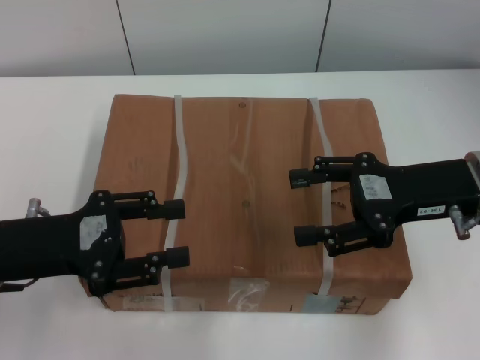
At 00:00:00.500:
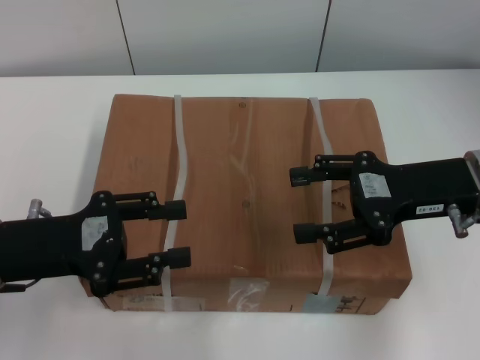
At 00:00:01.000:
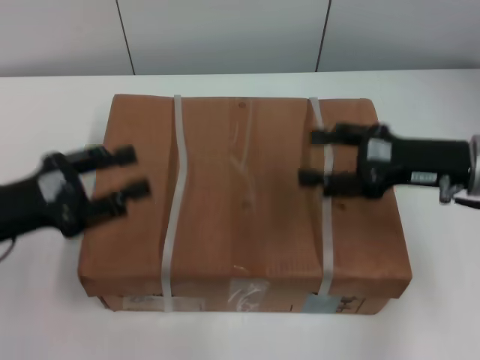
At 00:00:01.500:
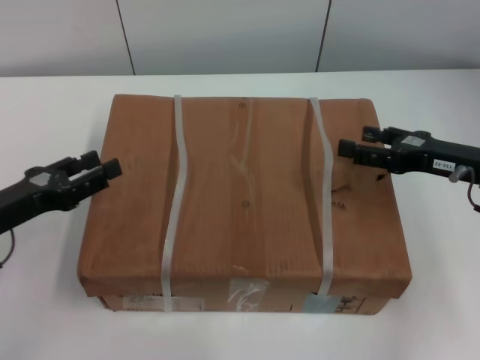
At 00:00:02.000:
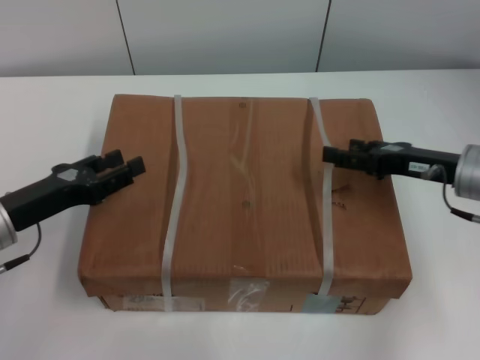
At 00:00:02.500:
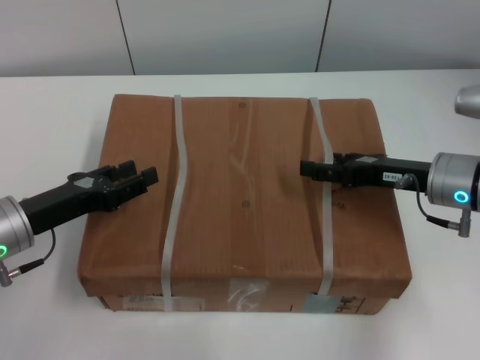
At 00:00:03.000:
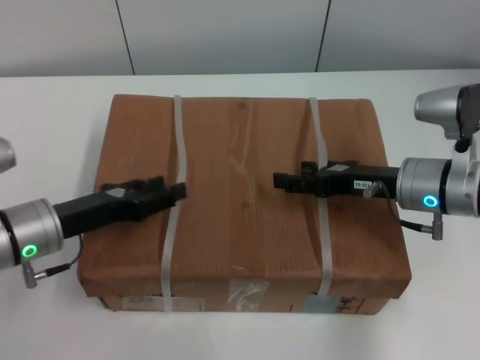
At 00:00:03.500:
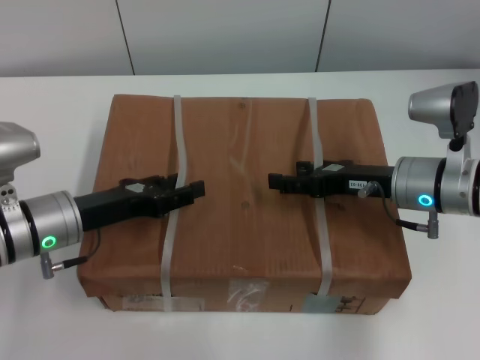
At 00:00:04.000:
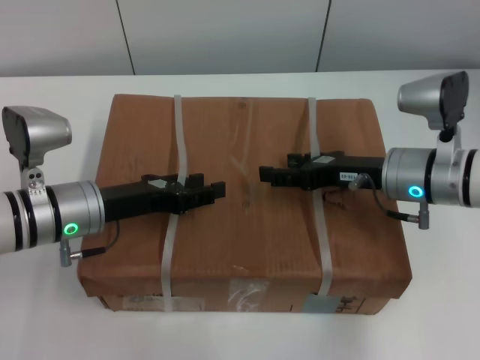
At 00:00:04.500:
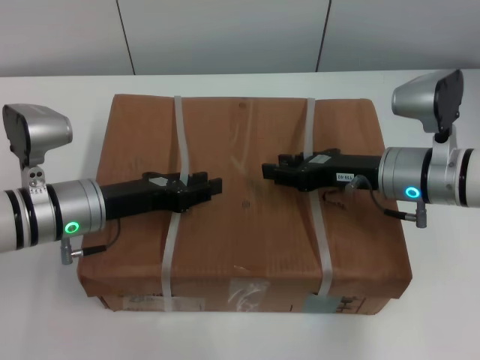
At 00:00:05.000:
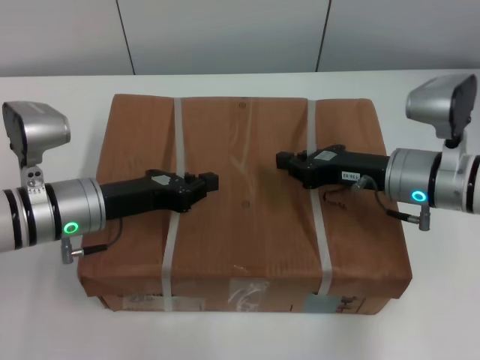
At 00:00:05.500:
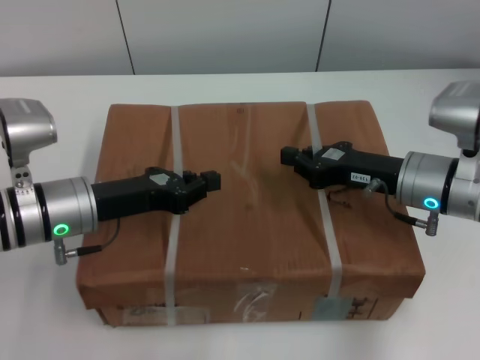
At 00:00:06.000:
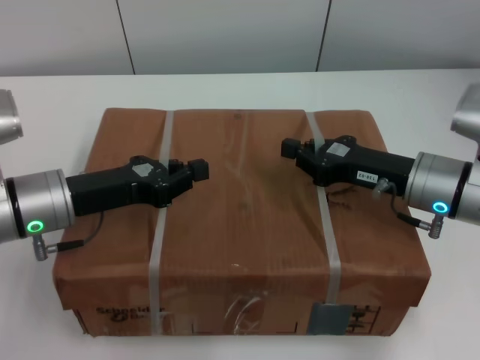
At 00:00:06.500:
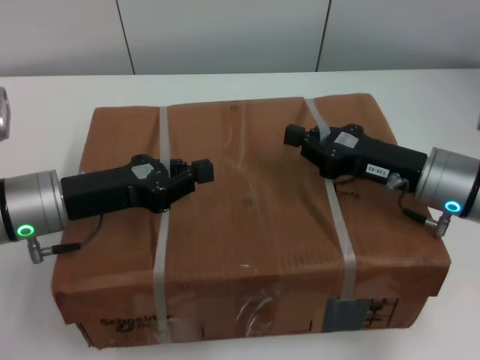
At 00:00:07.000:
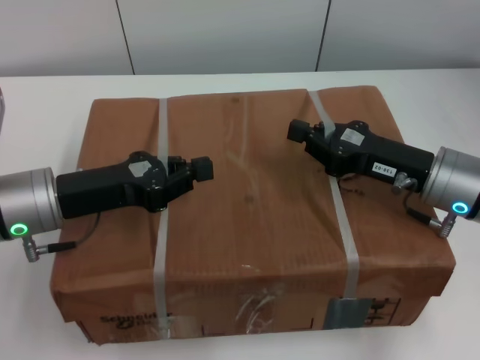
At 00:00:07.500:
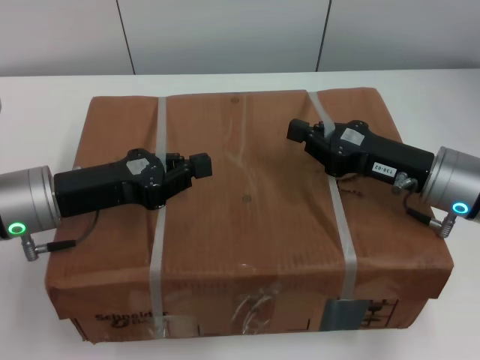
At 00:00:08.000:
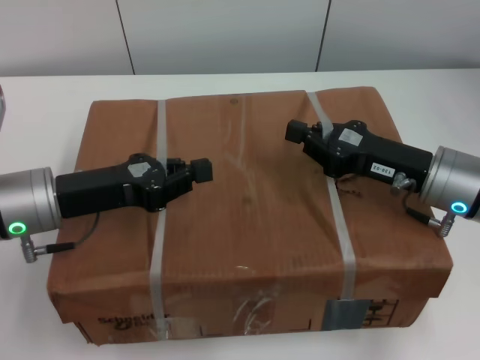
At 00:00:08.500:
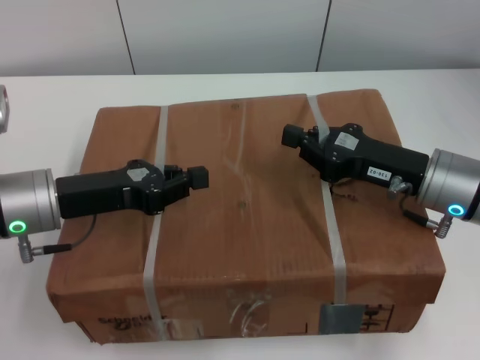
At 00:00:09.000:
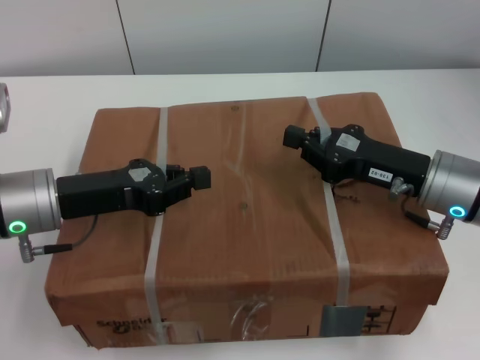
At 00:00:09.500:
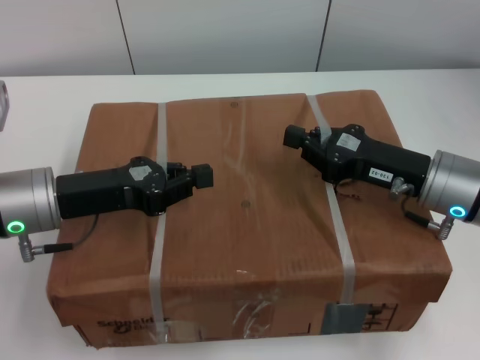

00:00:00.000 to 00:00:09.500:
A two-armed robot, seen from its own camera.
Task of the whole recording: pick up the box from the table with both arms.
Step, 00:00:00.000 to 00:00:05.000: Grasp the bandage with left gripper.
Step, 00:00:00.000 to 00:00:05.000: Grasp the bandage with right gripper.
Step, 00:00:05.500 to 00:00:07.000: Lift the box with left gripper.
Step, 00:00:05.500 to 00:00:07.000: Lift the box with right gripper.
00:00:00.000 to 00:00:02.000: The right gripper moves downward, roughly 5 cm; the left gripper changes place by about 5 cm.
00:00:02.000 to 00:00:04.000: The left gripper moves to the right, about 10 cm, while the right gripper heads to the left, covering some 5 cm.
00:00:04.000 to 00:00:05.500: The left gripper closes its fingers. The right gripper closes.
00:00:07.500 to 00:00:09.500: There are only small adjustments of the grippers.
